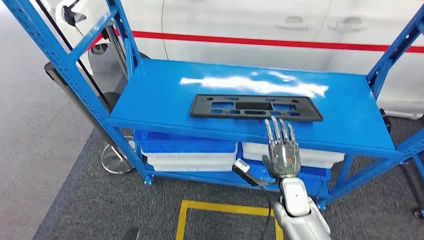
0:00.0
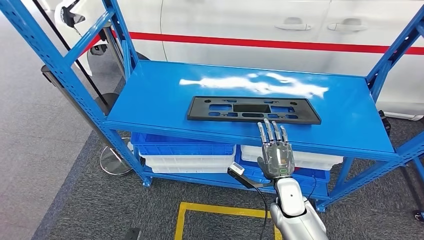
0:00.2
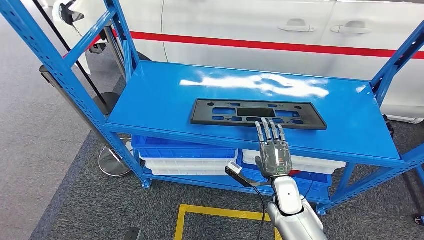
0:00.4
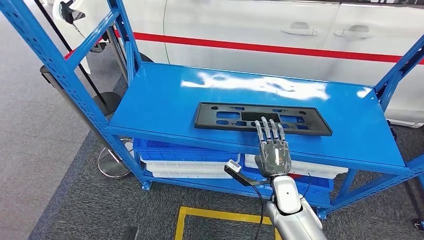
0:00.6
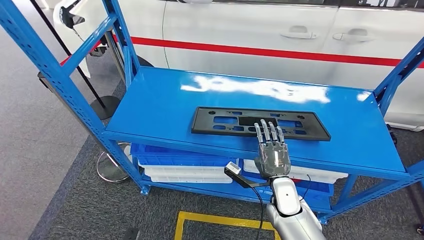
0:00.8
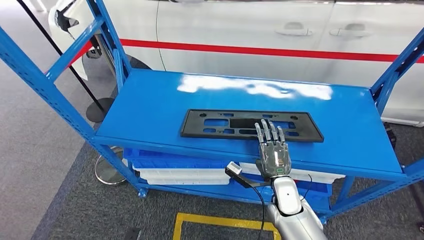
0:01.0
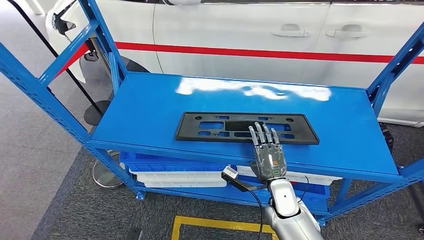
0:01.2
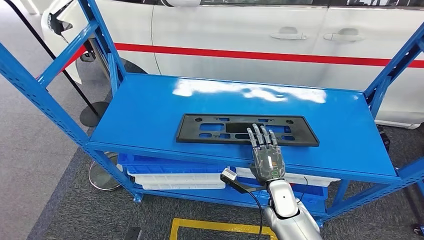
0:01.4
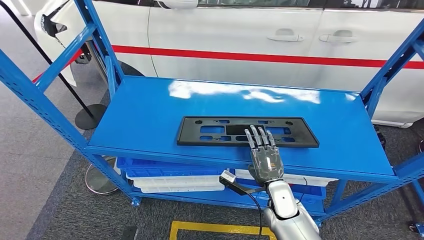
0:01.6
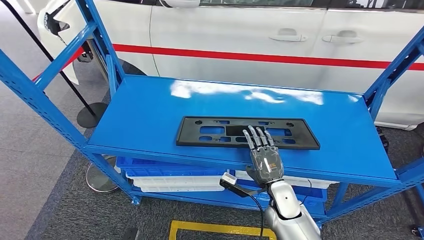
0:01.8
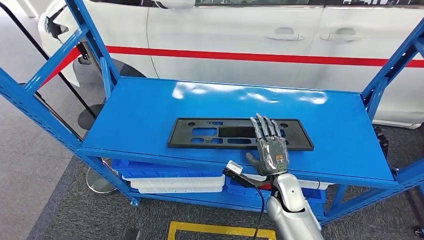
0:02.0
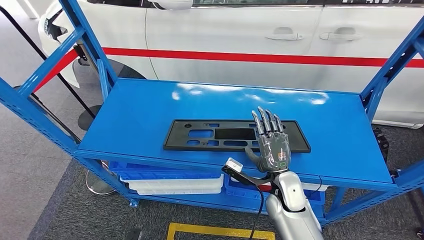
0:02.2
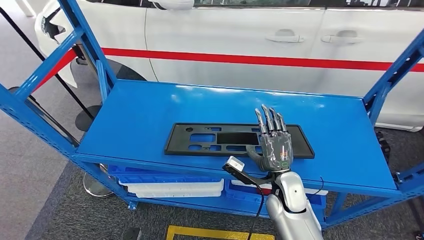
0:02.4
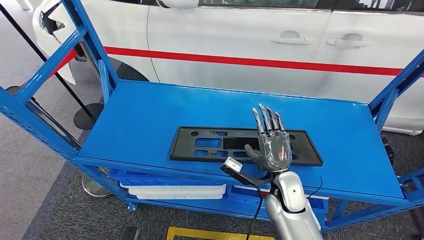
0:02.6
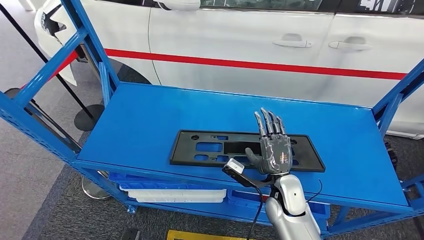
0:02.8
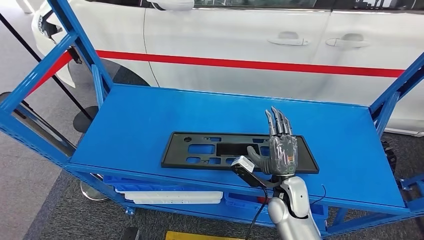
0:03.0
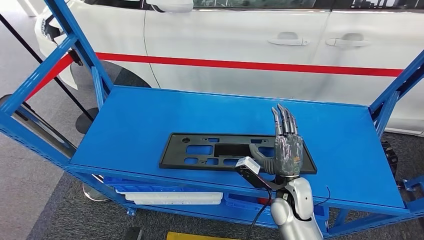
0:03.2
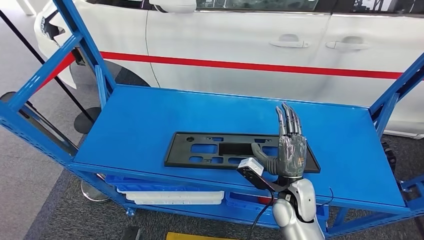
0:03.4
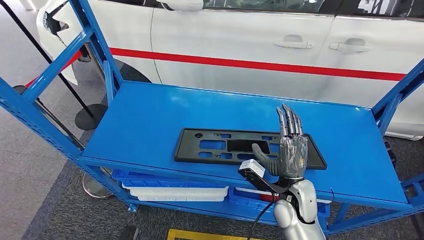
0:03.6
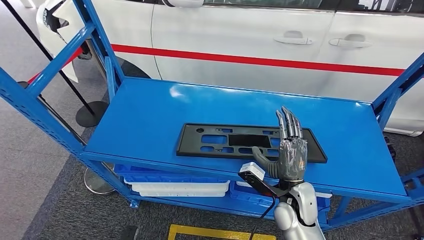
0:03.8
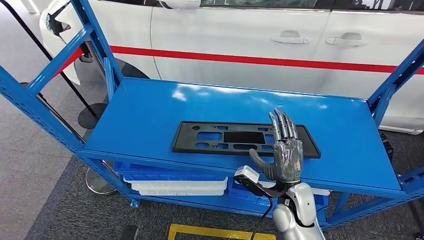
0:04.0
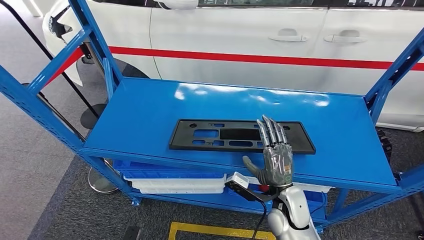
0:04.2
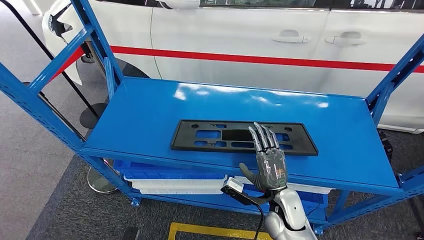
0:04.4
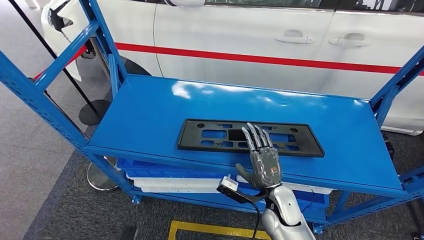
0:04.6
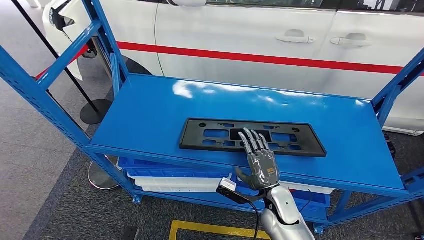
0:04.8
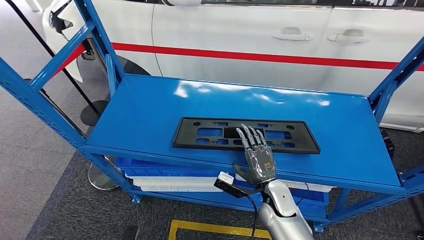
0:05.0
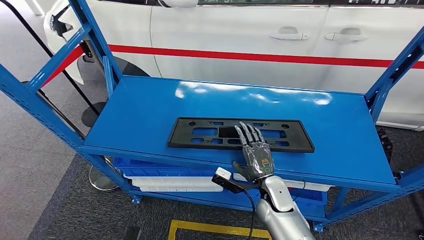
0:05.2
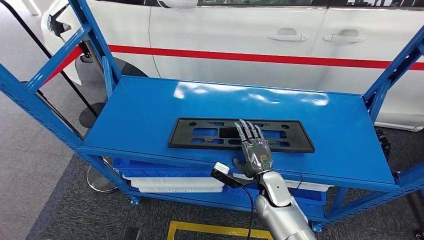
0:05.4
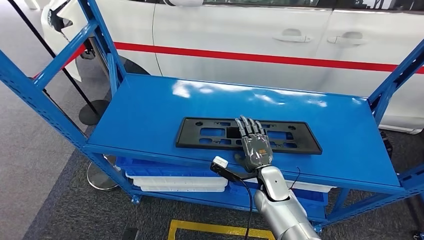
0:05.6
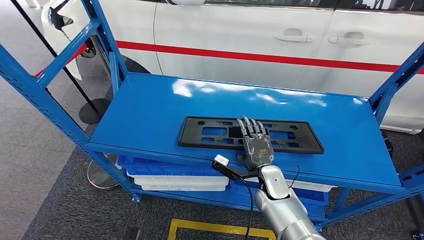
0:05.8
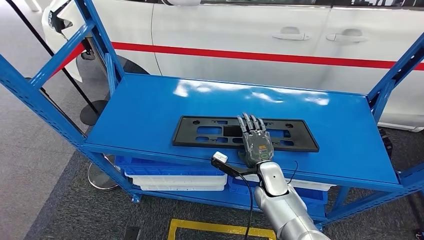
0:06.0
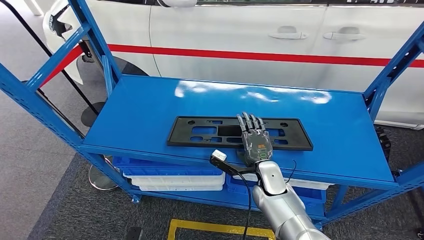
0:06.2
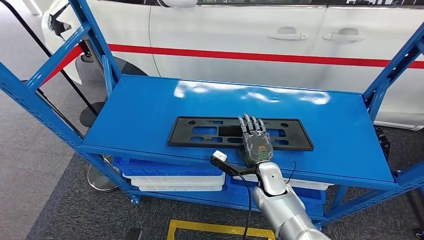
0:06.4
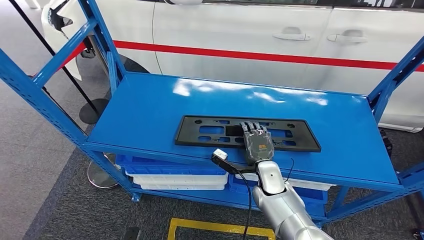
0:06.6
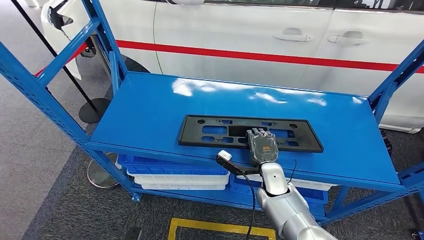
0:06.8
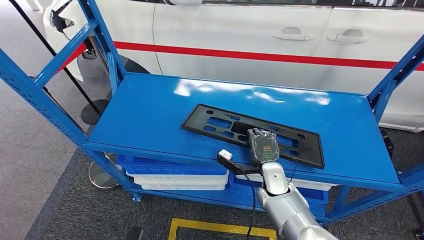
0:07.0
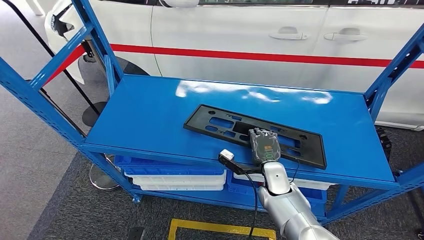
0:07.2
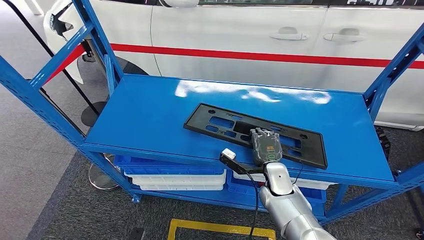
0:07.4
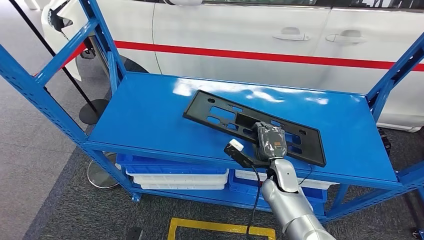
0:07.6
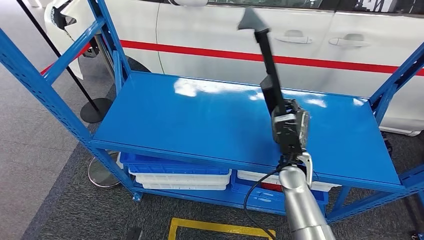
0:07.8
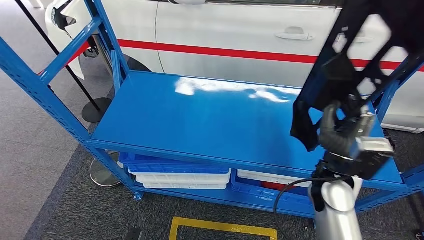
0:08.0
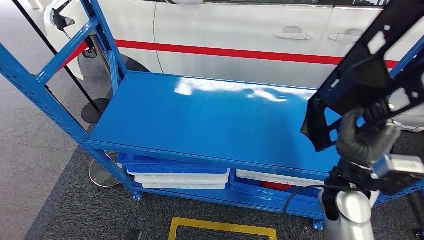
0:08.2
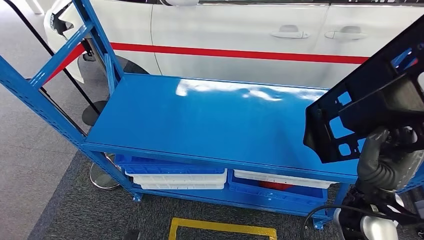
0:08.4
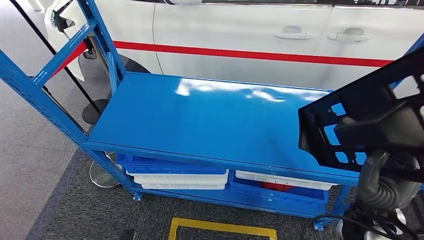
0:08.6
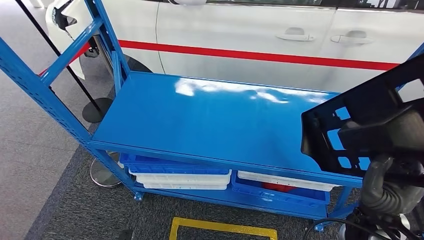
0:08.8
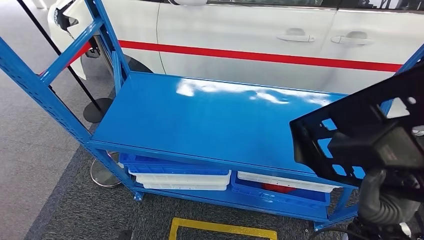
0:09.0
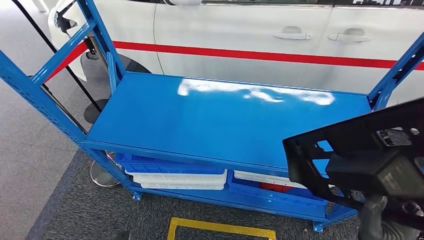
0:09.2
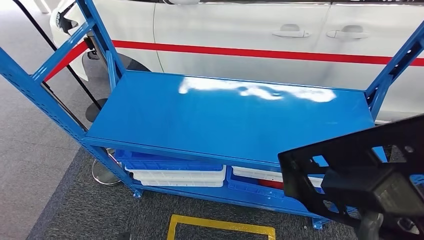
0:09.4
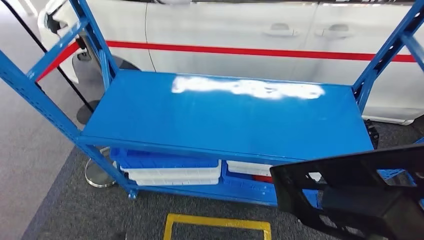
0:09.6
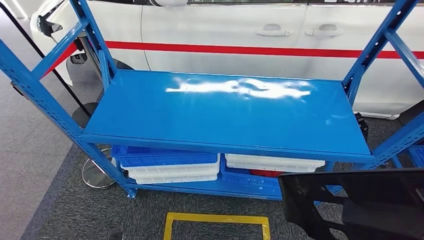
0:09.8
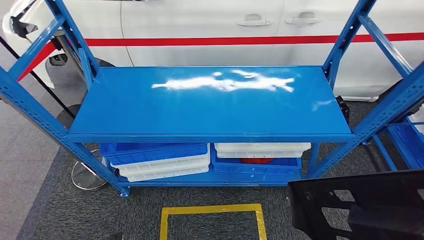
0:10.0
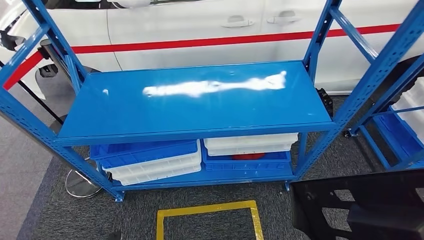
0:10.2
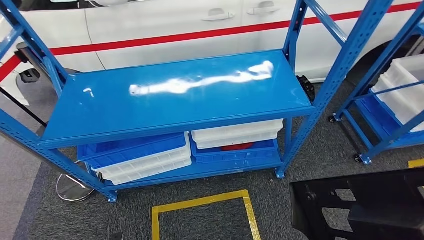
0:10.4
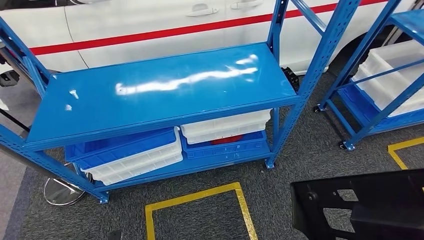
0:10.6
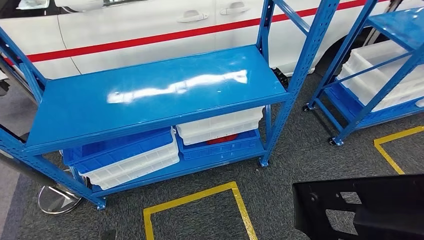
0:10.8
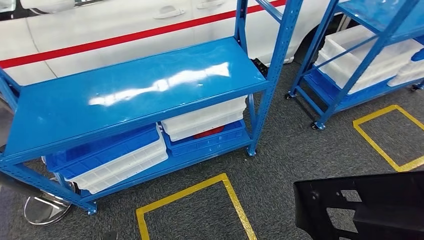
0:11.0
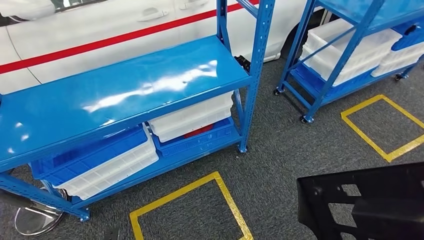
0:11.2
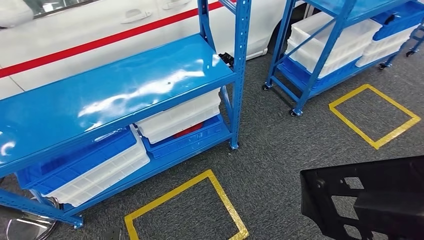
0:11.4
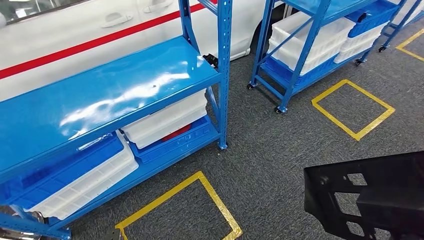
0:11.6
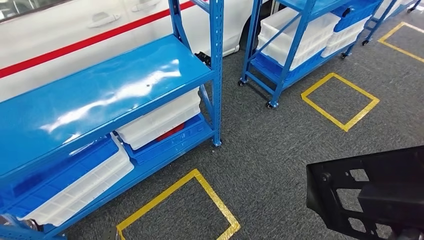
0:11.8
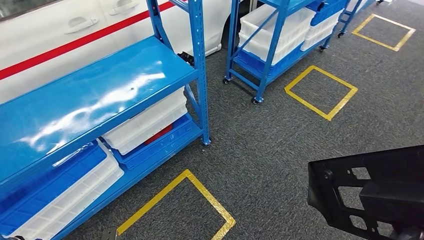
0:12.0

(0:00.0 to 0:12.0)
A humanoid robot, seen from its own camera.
Step, 0:00.0 - 0:08.4: Pick up the large material from the shelf.
0:06.0 - 0:07.6: The hands make only small movements.

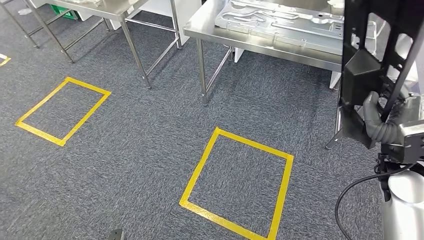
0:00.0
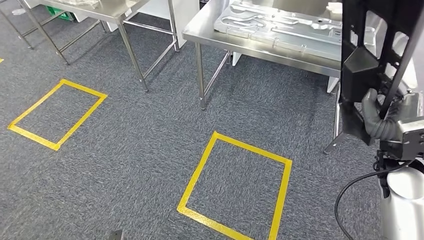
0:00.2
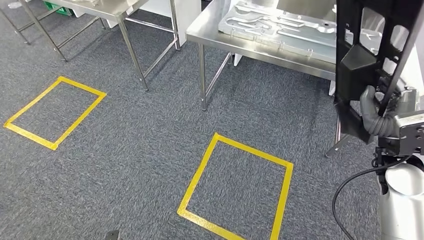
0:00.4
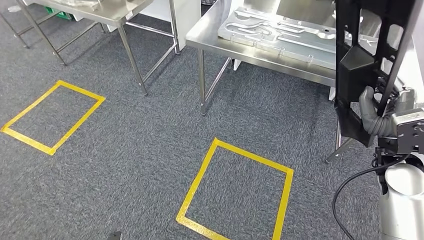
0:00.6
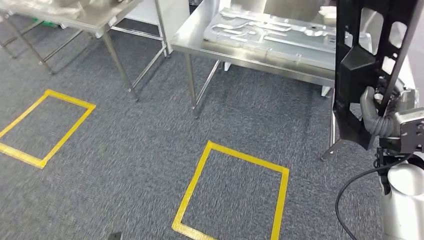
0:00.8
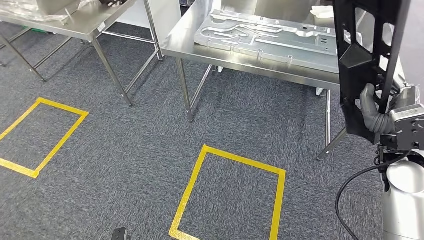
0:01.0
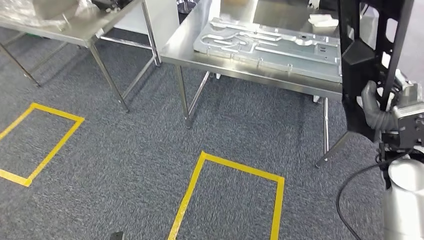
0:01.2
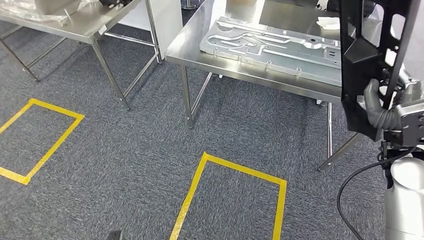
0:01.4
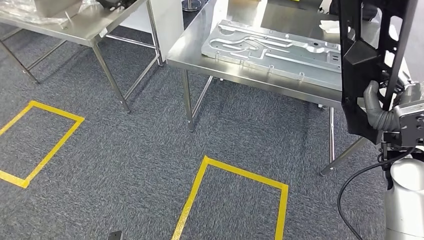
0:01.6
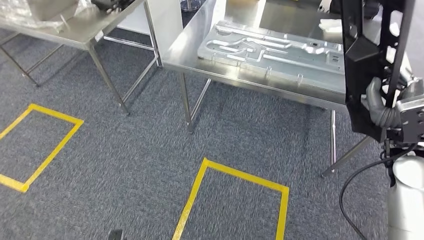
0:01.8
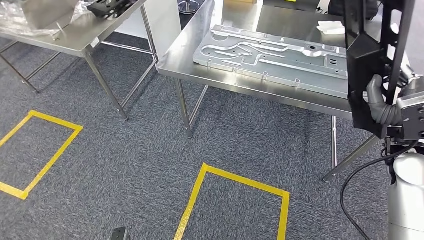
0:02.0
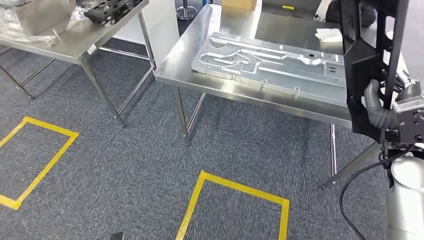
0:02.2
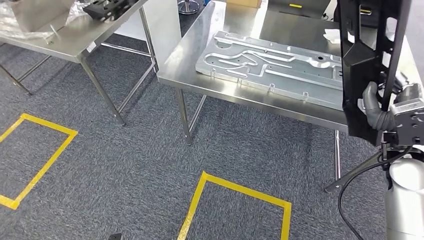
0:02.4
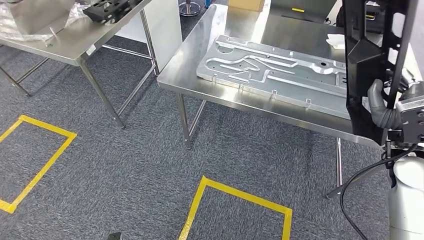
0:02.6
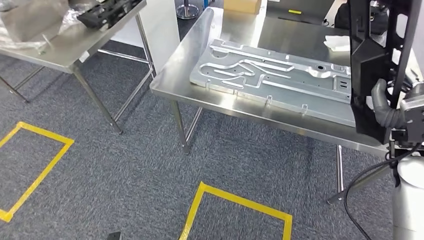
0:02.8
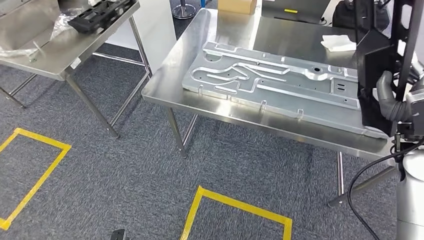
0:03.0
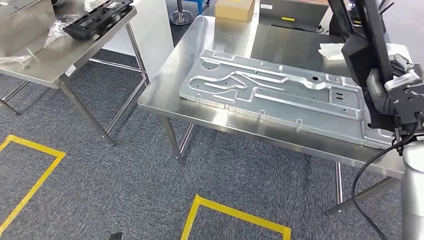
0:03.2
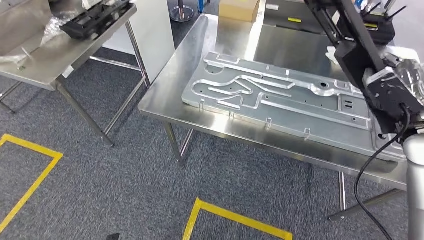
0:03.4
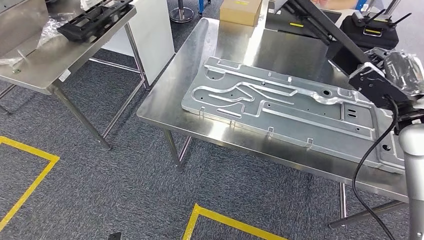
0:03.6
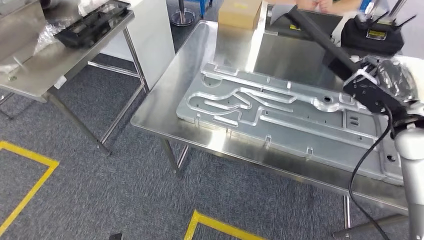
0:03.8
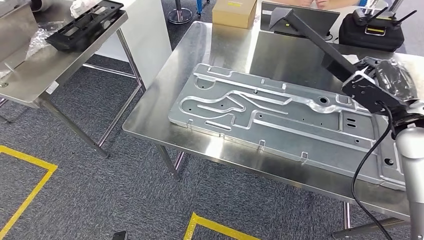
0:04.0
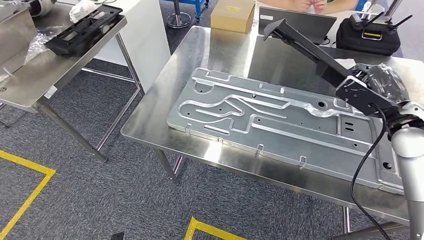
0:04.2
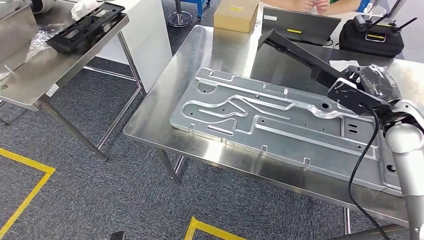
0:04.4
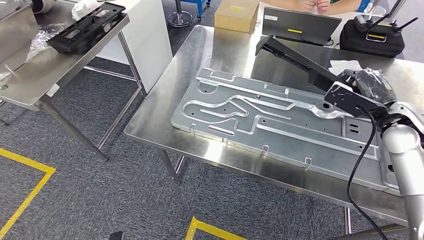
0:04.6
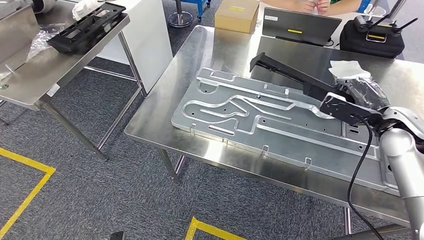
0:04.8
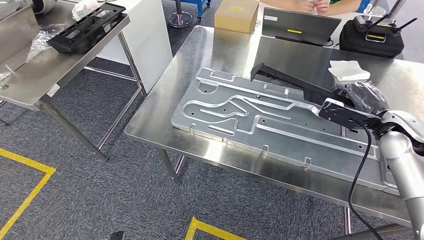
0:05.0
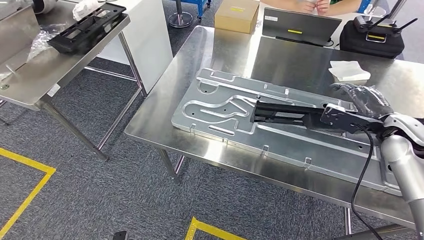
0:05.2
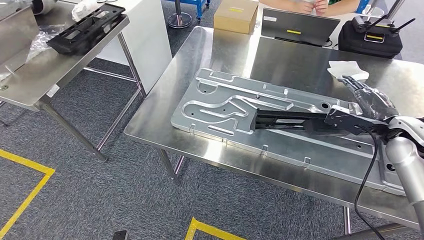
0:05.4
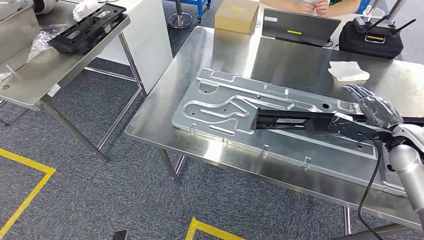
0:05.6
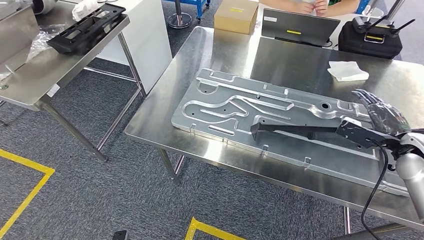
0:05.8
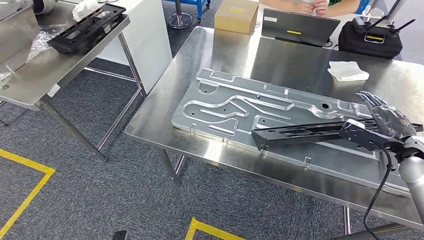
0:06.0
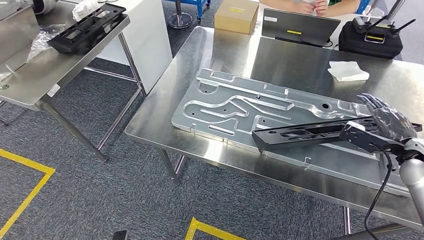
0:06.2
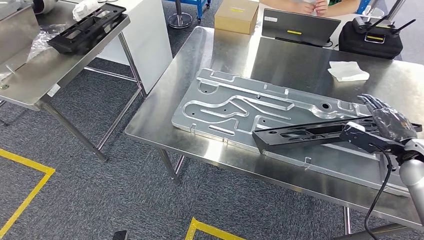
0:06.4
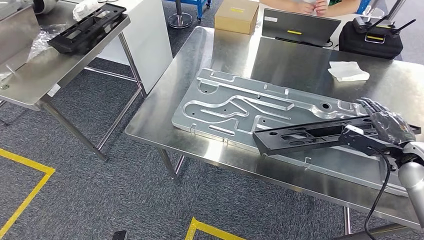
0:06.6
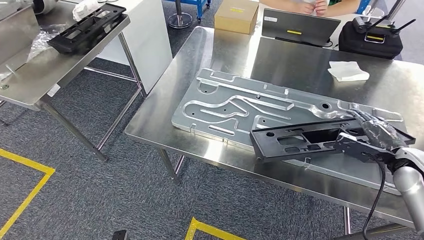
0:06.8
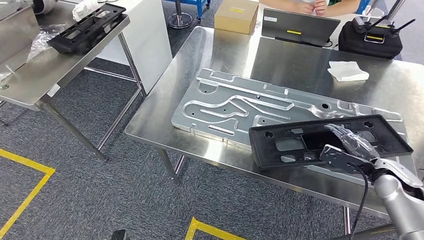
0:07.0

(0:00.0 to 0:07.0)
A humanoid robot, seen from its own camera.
Step, 0:00.0 - 0:02.6: Move the large material to the workbench.
0:05.6 - 0:07.0: The right hand heads downward, covering about 10 cm.
